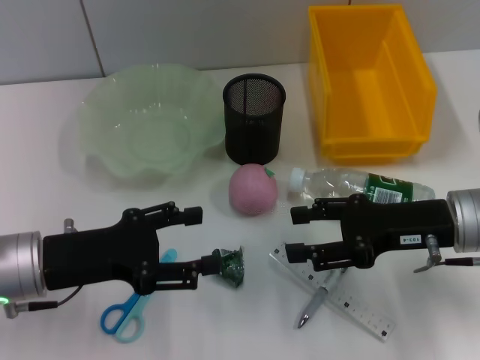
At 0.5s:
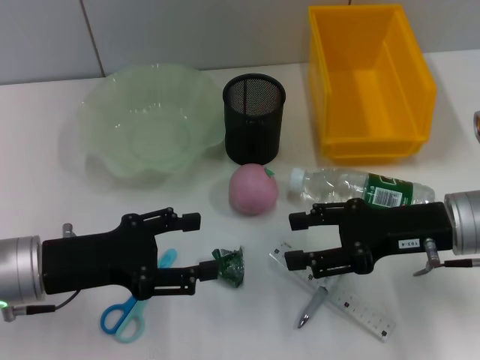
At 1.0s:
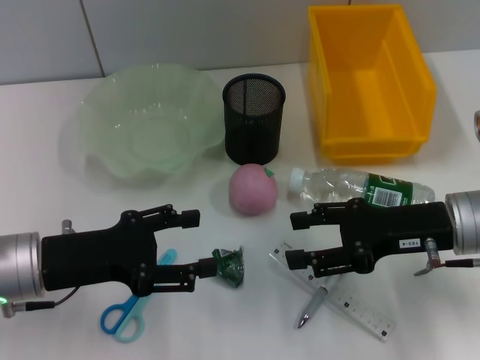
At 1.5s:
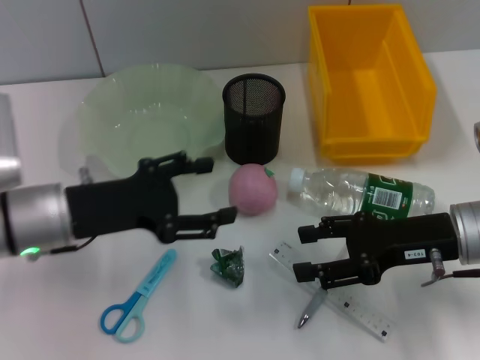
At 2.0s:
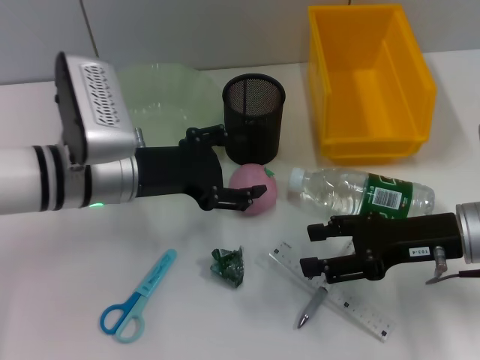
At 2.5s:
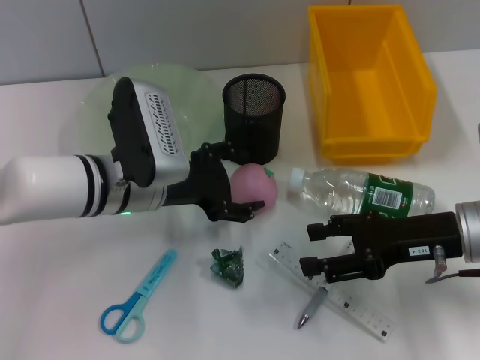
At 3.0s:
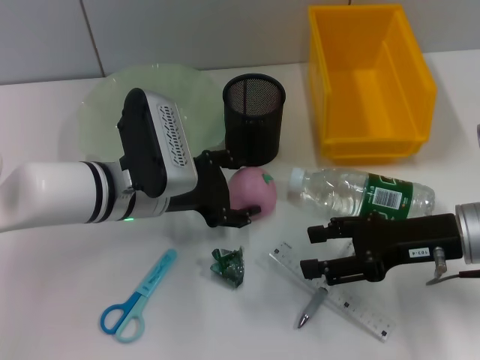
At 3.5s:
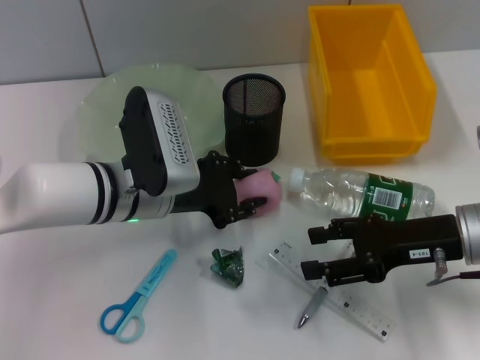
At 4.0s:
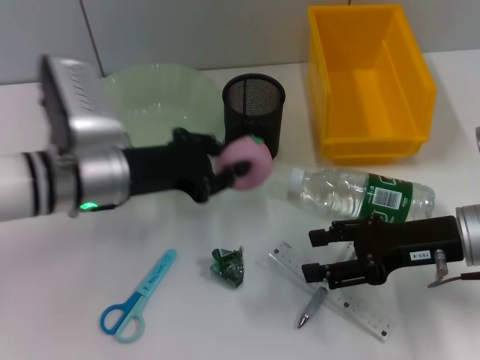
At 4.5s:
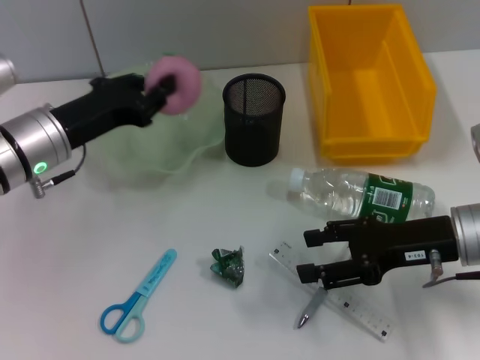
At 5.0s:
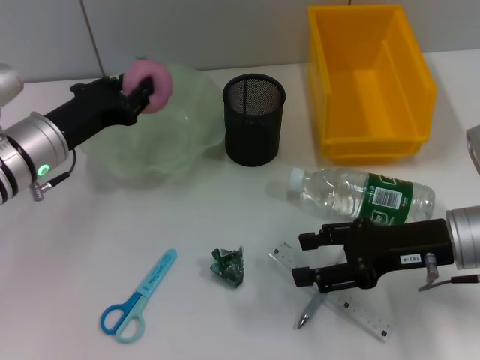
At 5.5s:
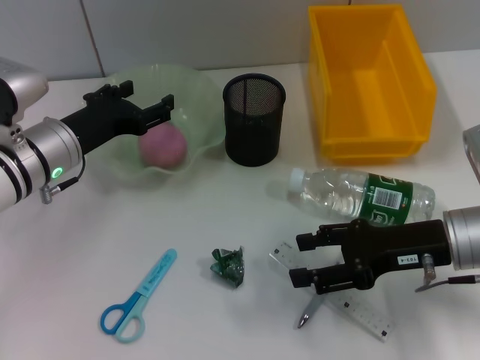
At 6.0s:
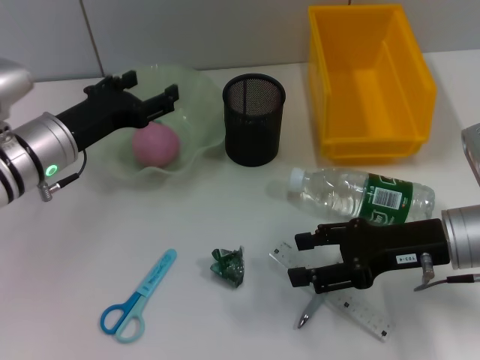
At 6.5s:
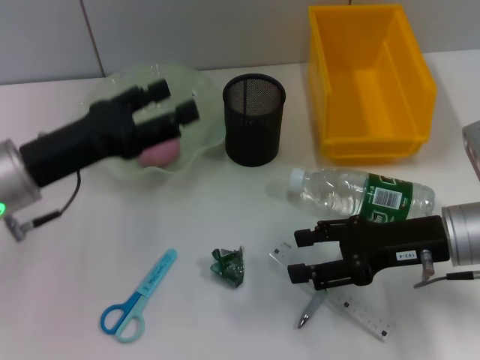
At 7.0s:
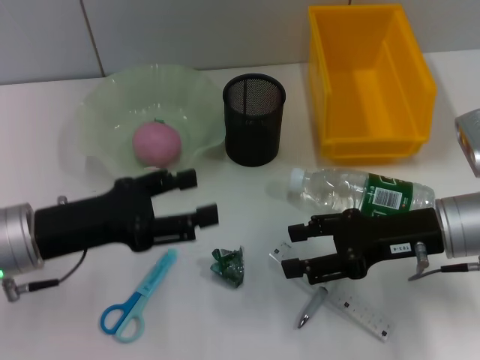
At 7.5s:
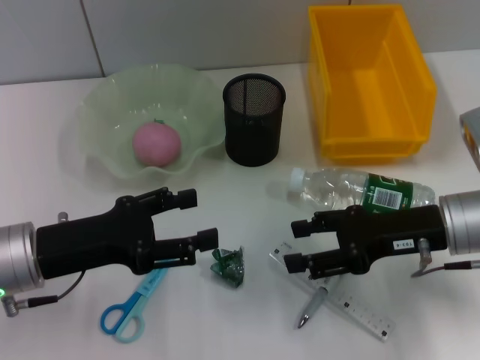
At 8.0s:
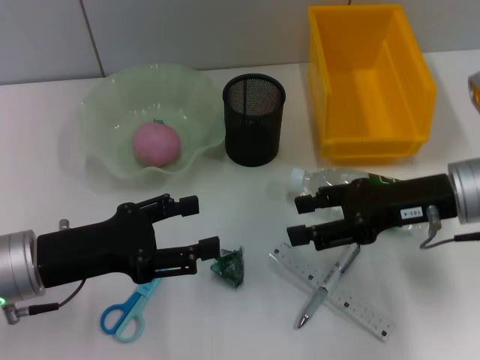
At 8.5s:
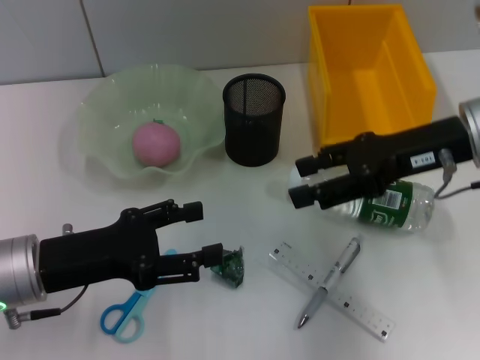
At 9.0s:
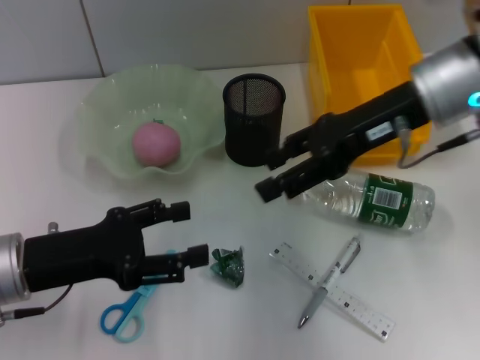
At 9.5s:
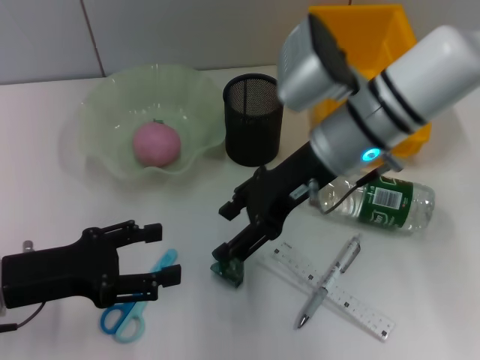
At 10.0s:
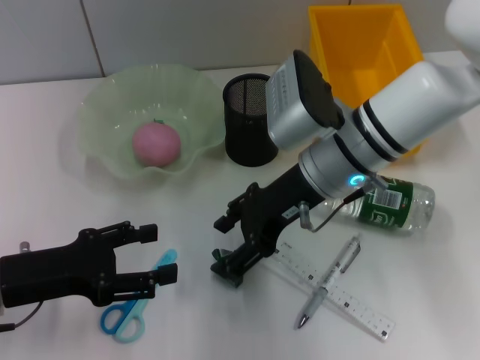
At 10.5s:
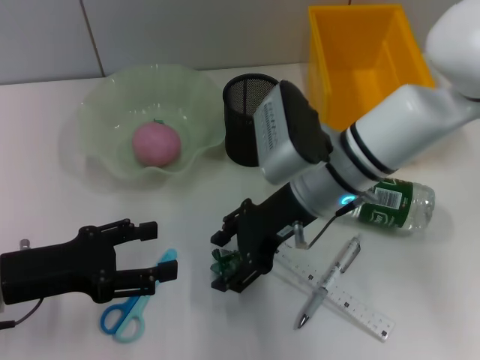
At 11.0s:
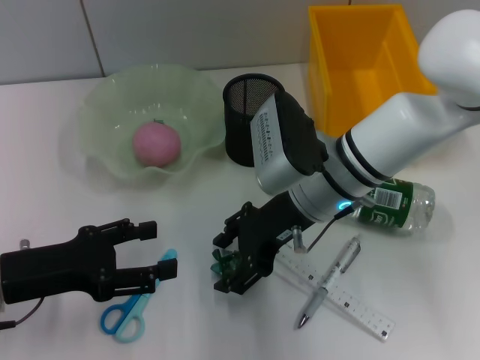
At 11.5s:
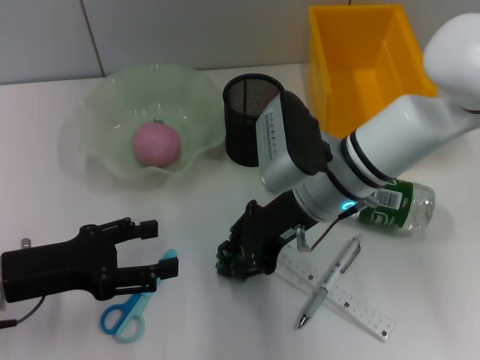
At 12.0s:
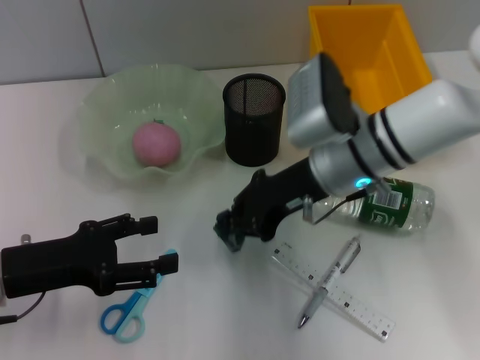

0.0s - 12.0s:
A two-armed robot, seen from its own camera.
Step, 0.0s - 3.0s: Grab the peach with the left hand.
Step, 3.5s - 5.5s: Place the peach into the fruit bowl with the left hand.
Step, 6.0s - 11.5s: Grab the plastic with the right hand.
0.0s - 2.0s: The left gripper is displaced to the right and forward by some 10 cm.
2.0s - 4.0s: The left gripper closes up.
4.0s - 6.0s: The left gripper opens up.
6.0s - 8.0s: The left gripper goes about 10 cm backward, while the right gripper moves approximately 5 cm.
8.0s - 10.0s: The right gripper moves to the left and forward, some 15 cm.
10.0s - 12.0s: The right gripper closes up.

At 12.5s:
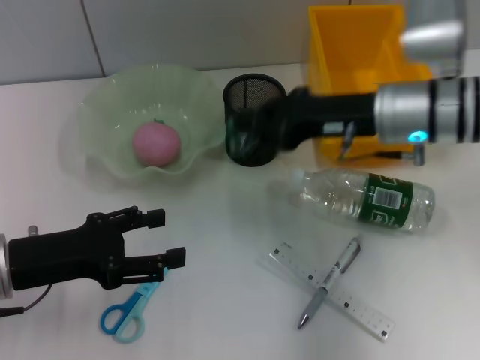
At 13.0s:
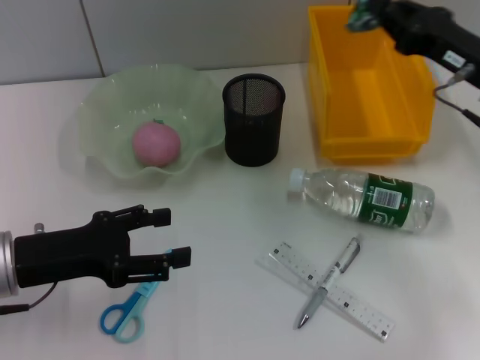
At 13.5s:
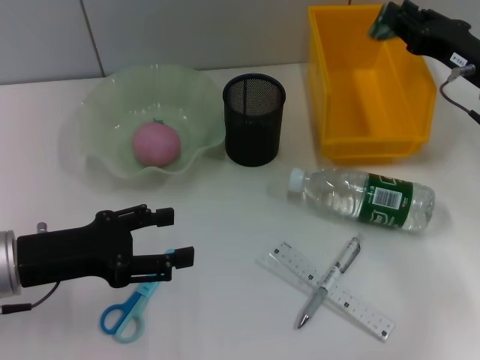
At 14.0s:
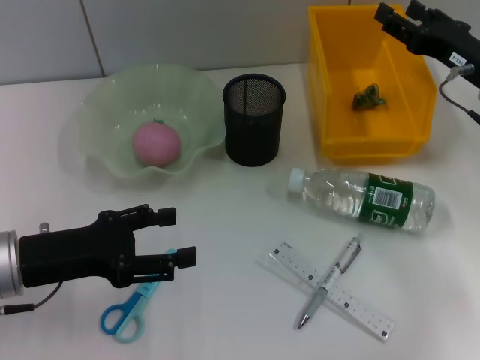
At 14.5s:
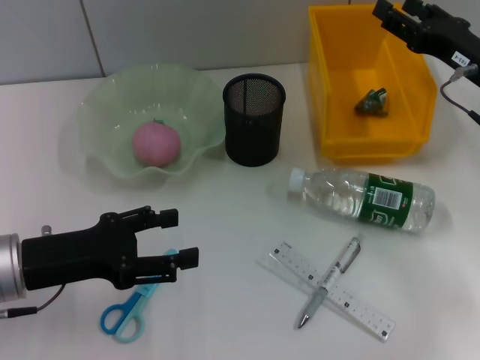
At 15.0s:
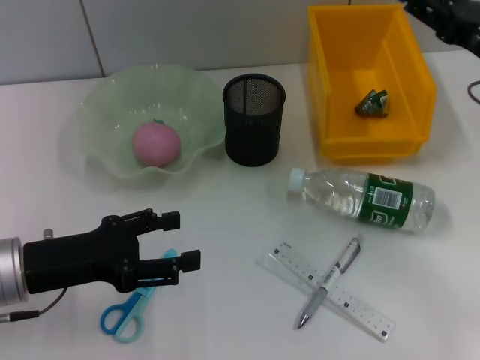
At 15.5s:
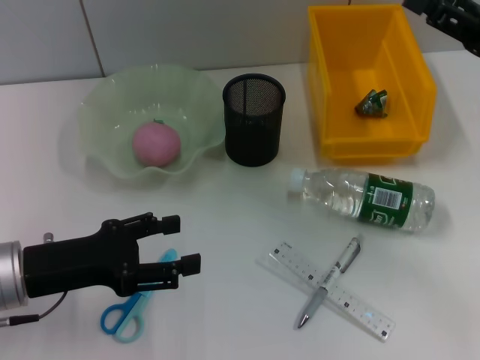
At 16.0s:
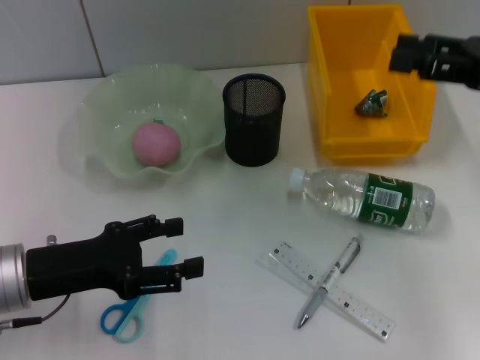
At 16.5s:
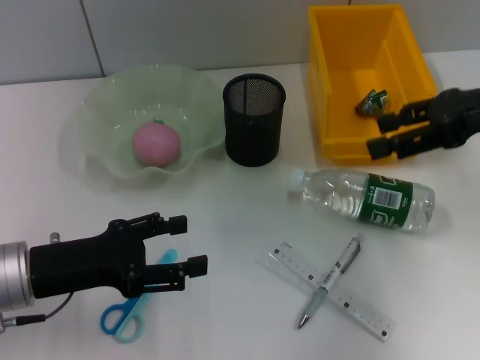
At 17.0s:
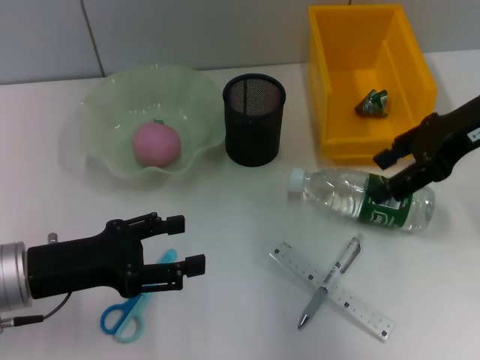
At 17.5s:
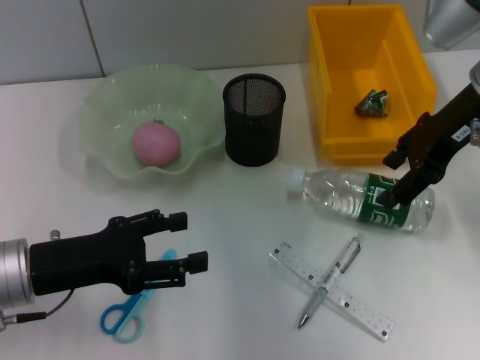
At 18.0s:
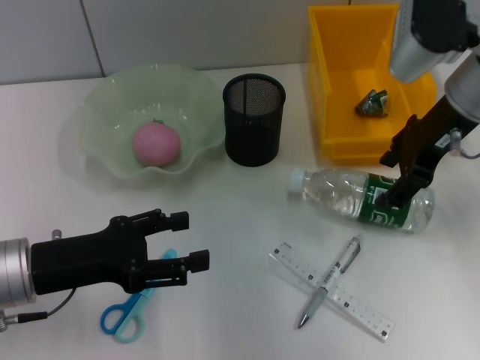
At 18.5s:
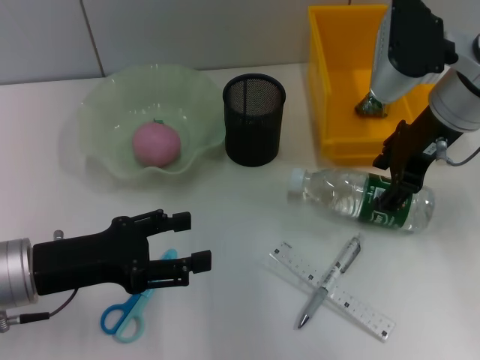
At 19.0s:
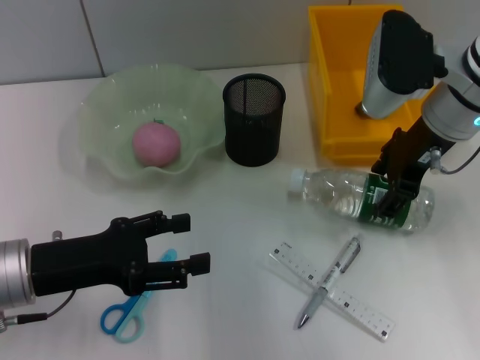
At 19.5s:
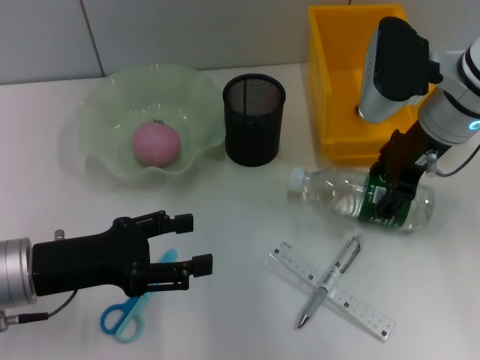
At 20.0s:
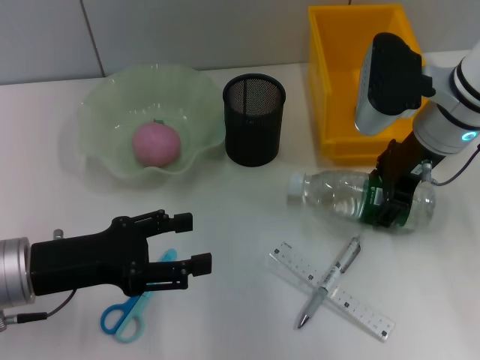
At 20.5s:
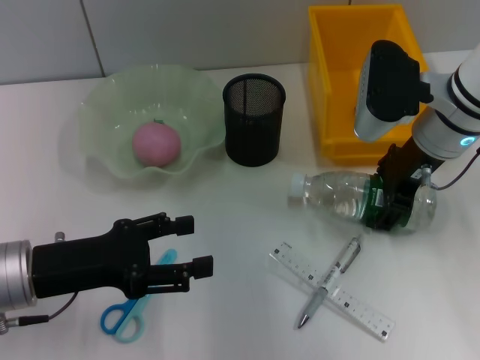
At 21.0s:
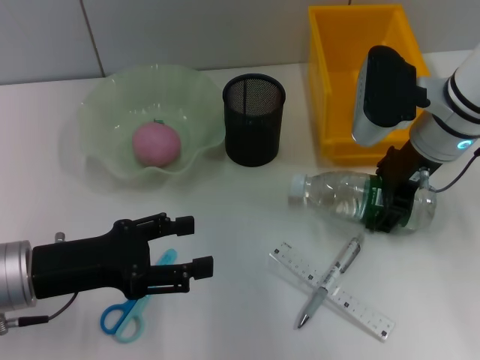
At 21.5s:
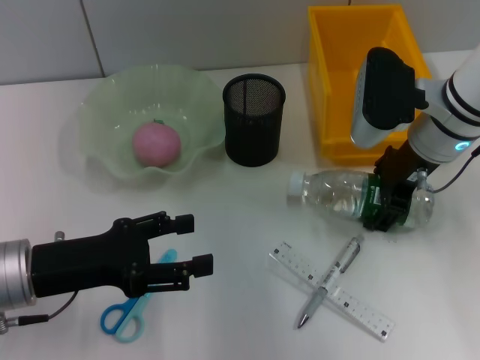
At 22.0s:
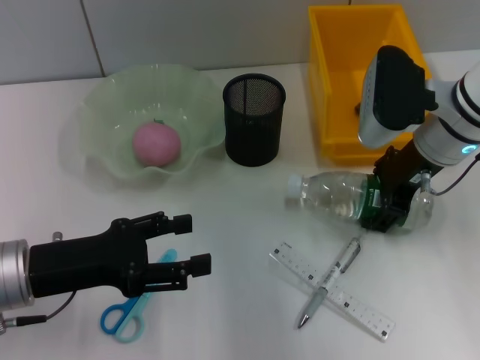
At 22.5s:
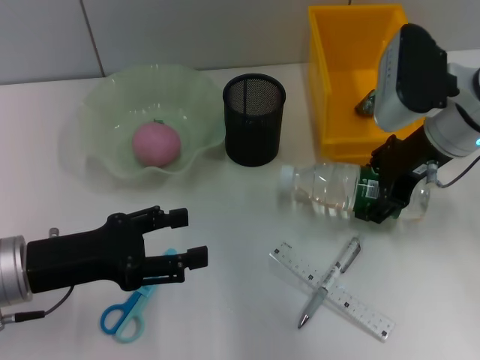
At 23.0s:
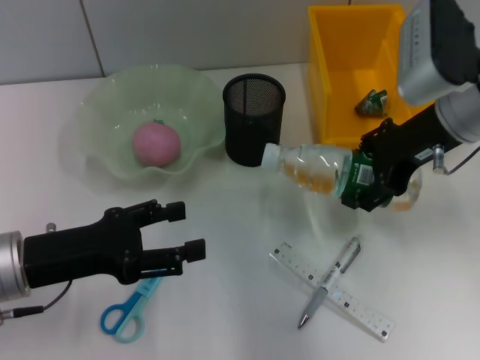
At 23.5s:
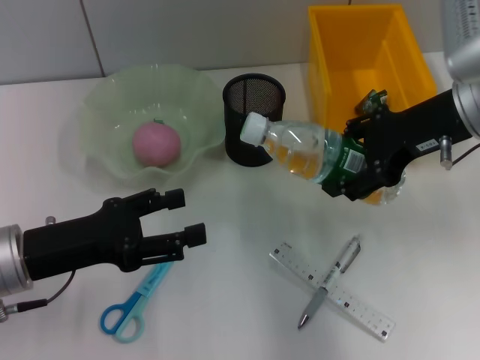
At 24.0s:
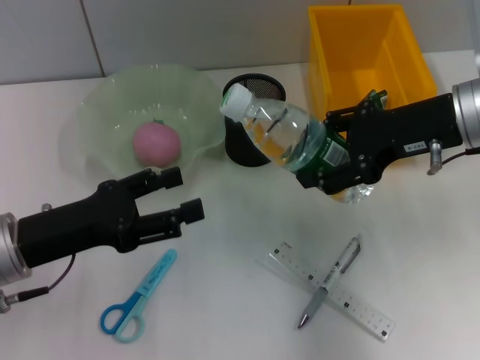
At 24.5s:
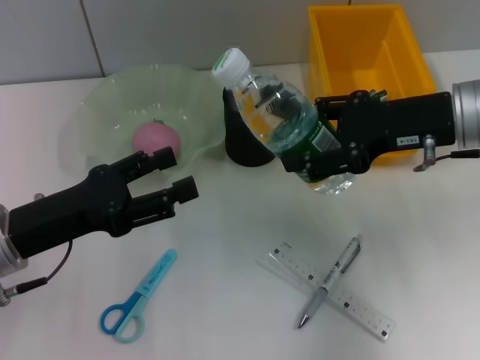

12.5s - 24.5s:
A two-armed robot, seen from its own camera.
Step, 12.5s - 13.5s: Place the plastic into the trash can with the right hand.
Step, 14.0s - 22.0s: Grab the water bottle with the right hand.
12.5s - 14.5s: The right gripper goes some 10 cm to the right, and opens its fingers.
14.5s - 16.5s: The right gripper moves upward, roughly 10 cm.
16.5s - 18.5s: The right gripper moves to the left, some 10 cm.
18.5s - 22.5s: The grippers move only a little.

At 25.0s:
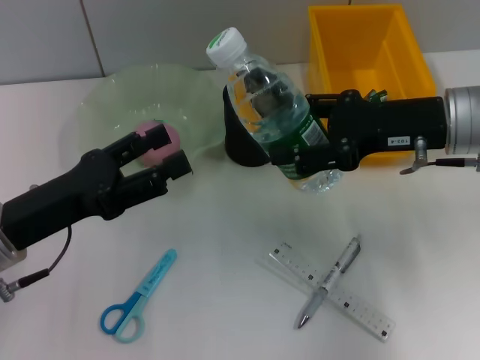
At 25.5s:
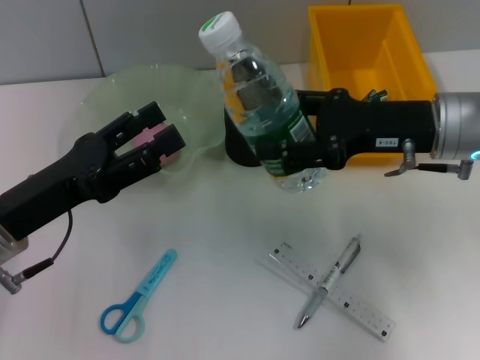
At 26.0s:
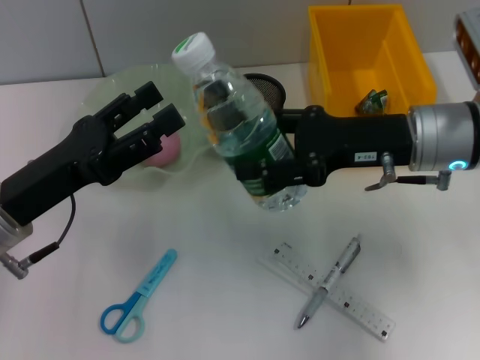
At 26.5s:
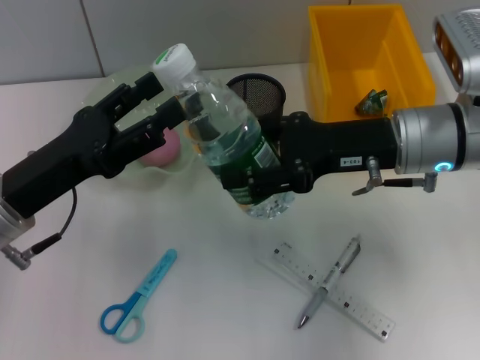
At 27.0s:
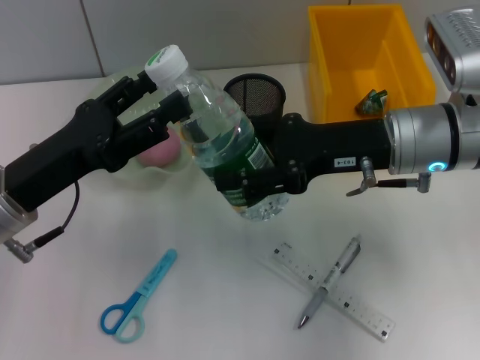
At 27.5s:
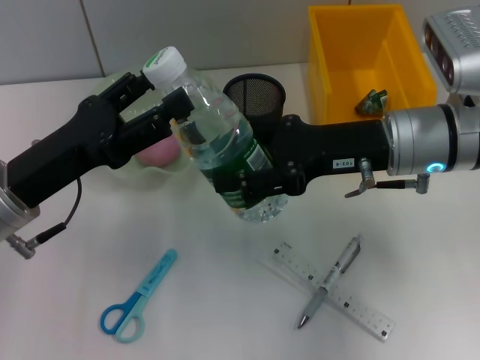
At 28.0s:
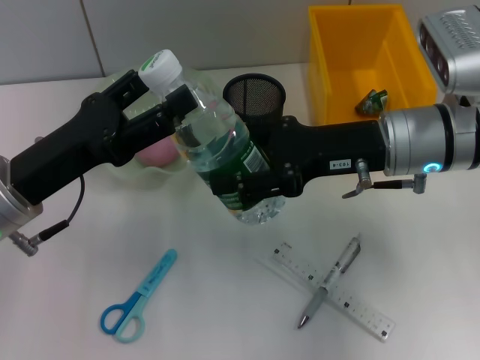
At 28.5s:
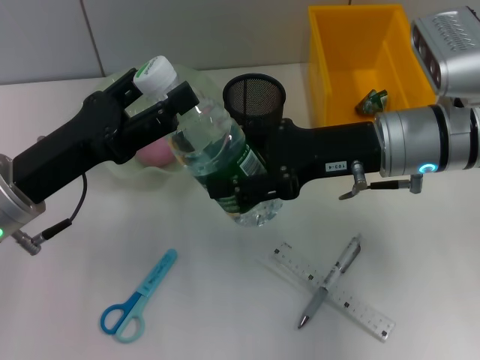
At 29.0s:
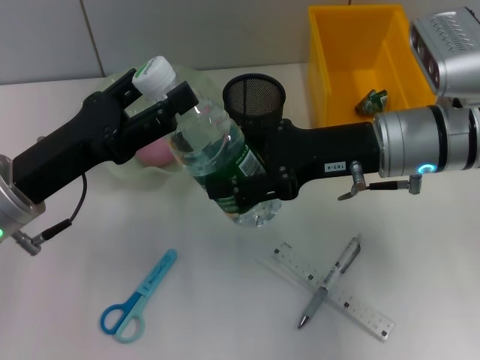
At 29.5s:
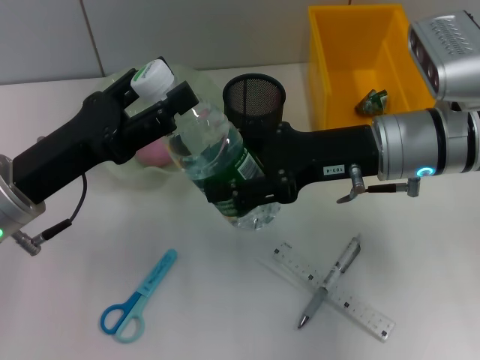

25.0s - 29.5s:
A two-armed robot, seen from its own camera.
25.0s - 27.0s: The right gripper moves roughly 5 cm.
27.0s - 29.5s: The two grippers keep their place.
